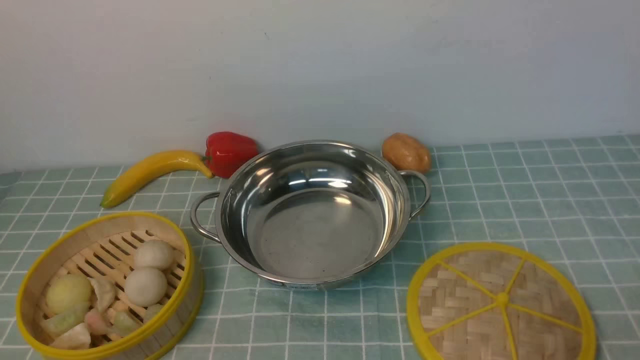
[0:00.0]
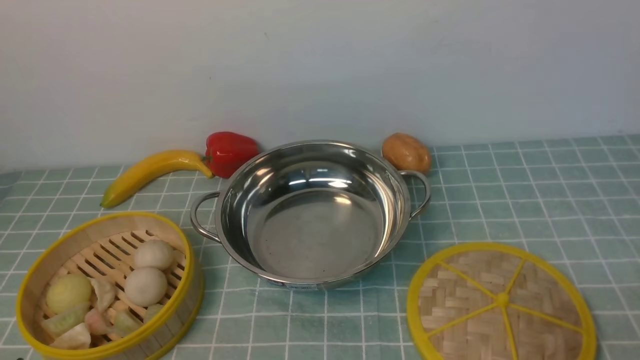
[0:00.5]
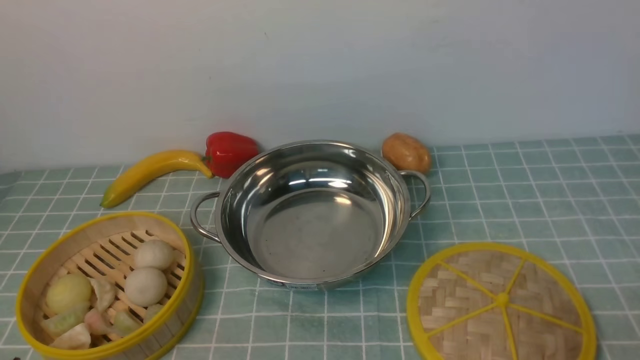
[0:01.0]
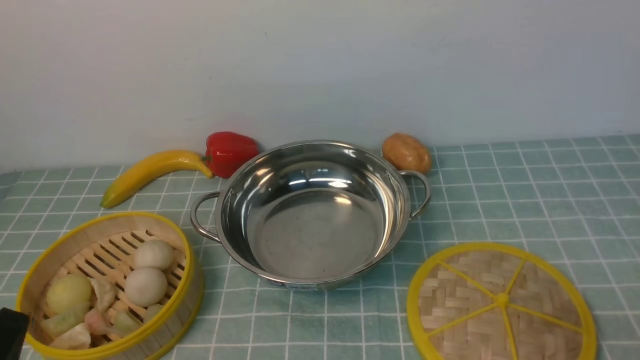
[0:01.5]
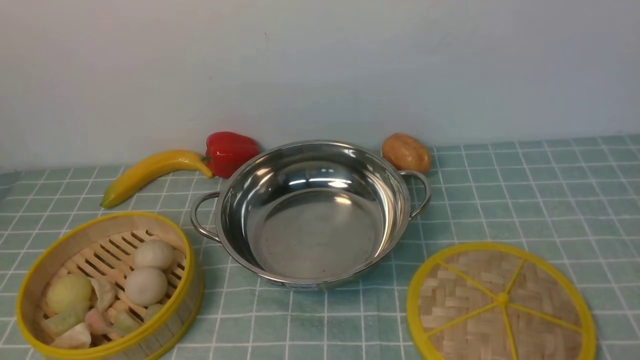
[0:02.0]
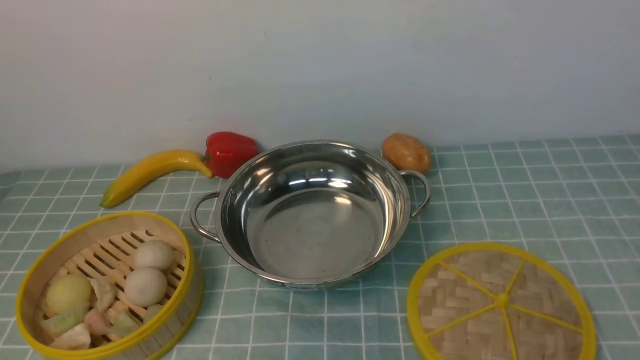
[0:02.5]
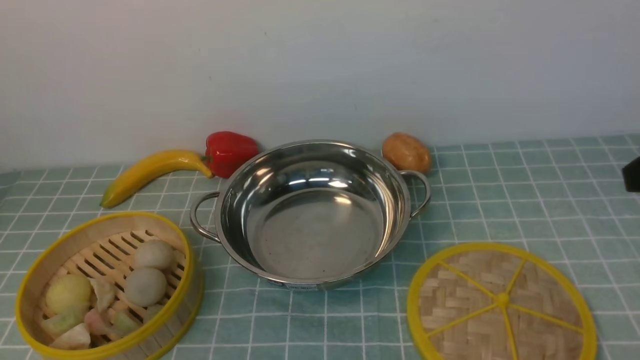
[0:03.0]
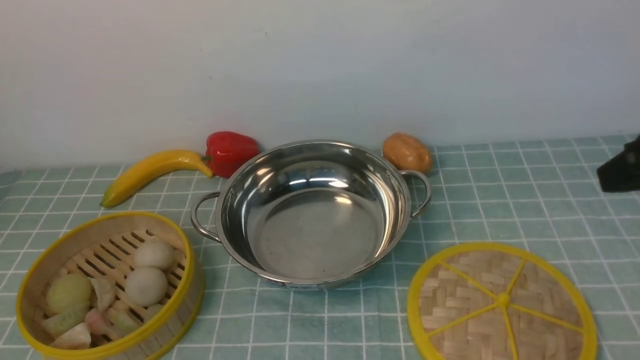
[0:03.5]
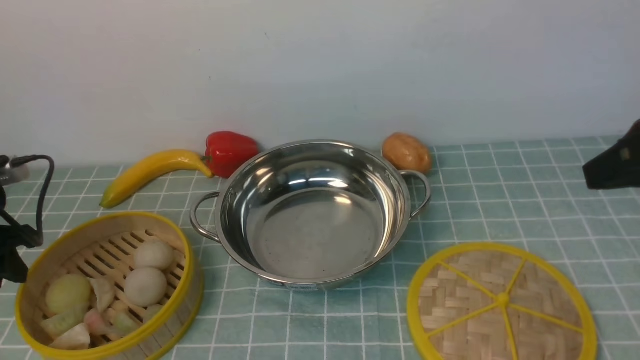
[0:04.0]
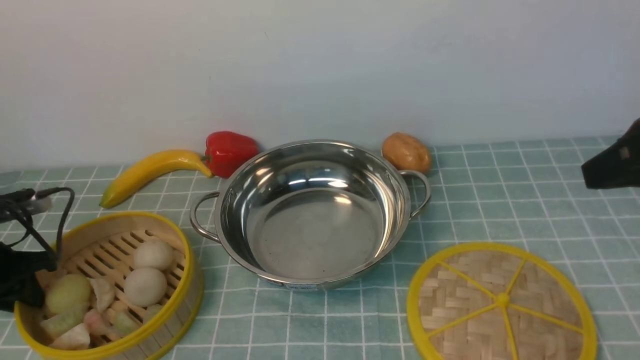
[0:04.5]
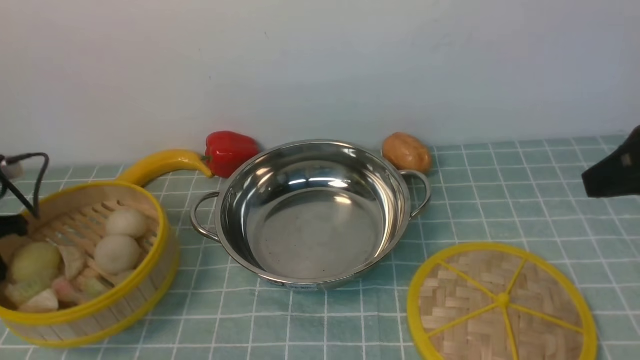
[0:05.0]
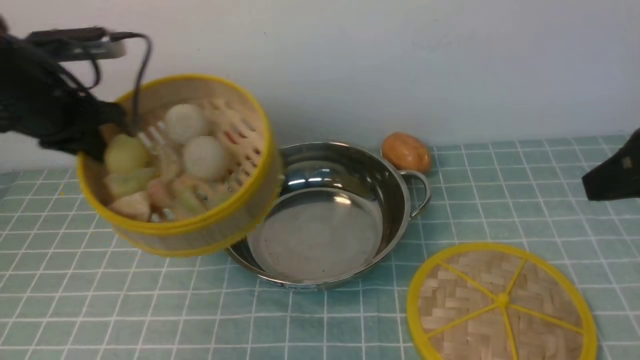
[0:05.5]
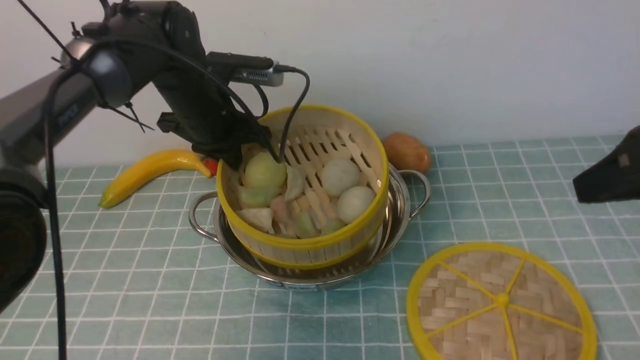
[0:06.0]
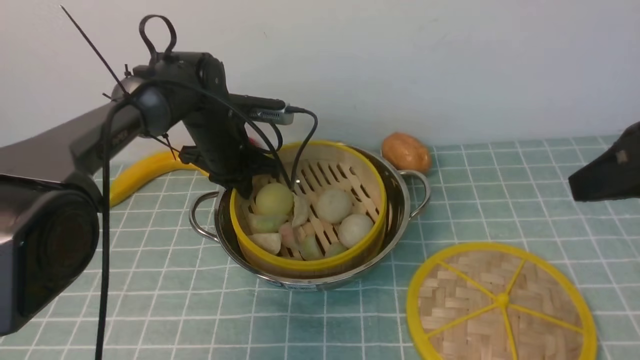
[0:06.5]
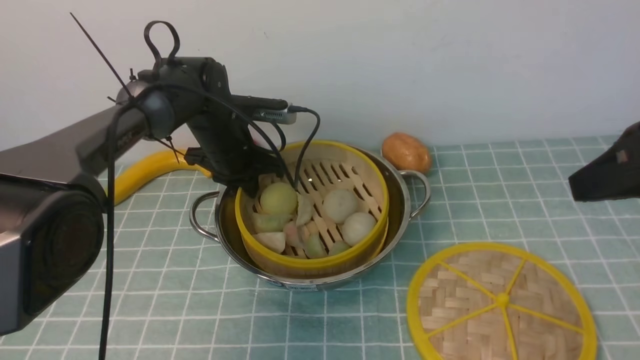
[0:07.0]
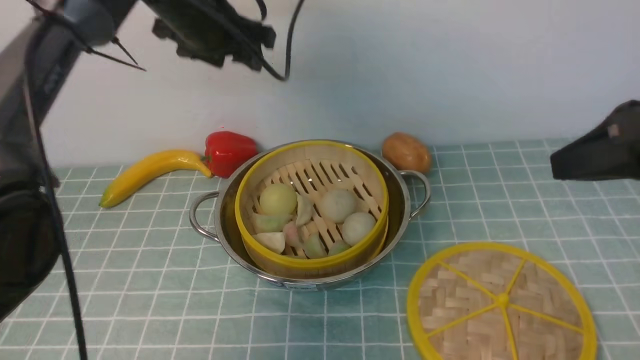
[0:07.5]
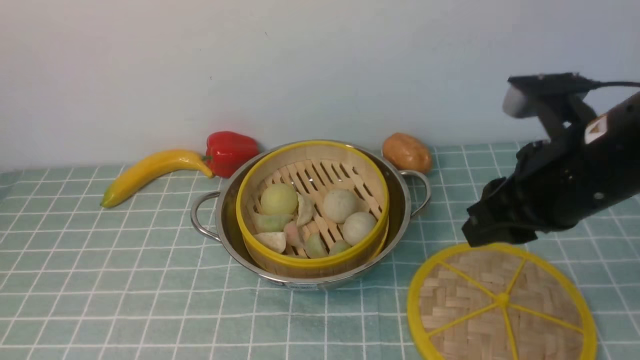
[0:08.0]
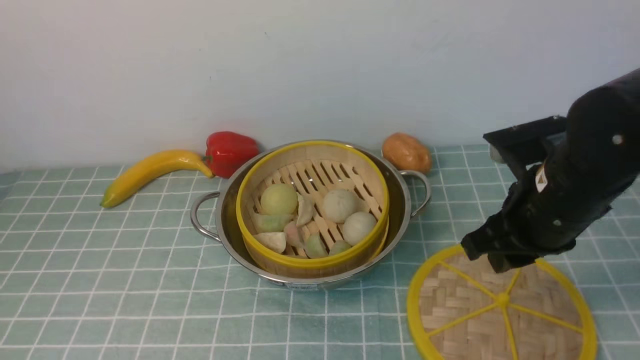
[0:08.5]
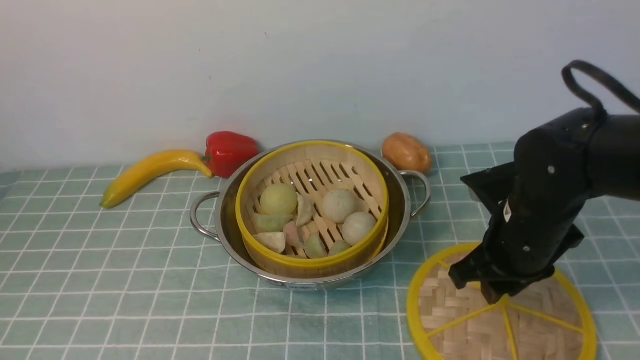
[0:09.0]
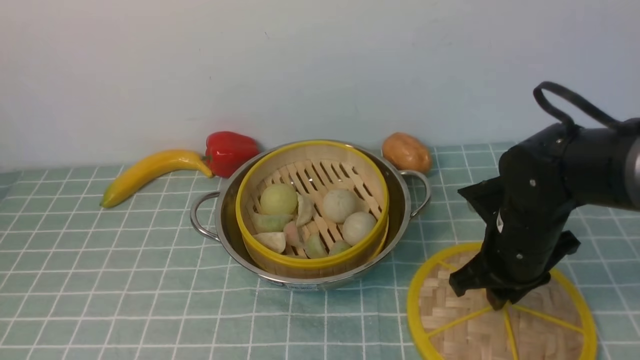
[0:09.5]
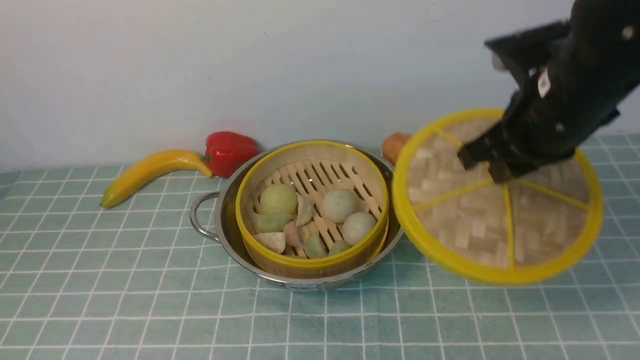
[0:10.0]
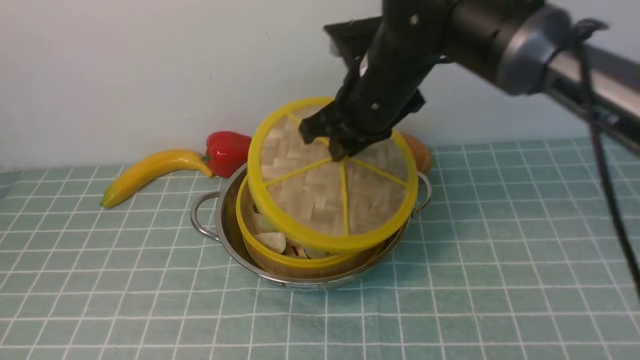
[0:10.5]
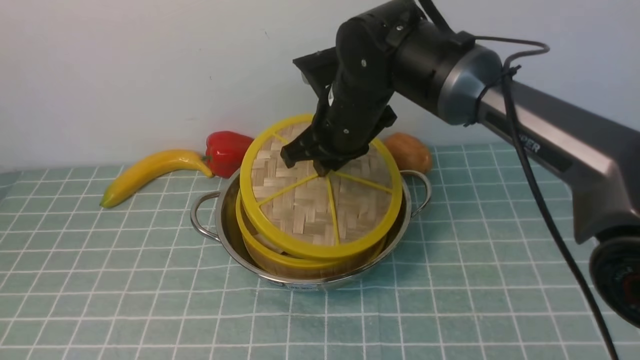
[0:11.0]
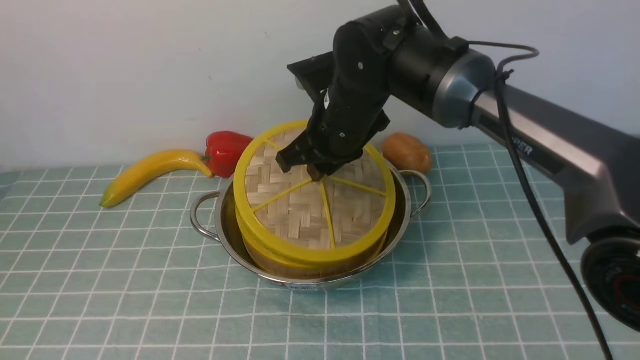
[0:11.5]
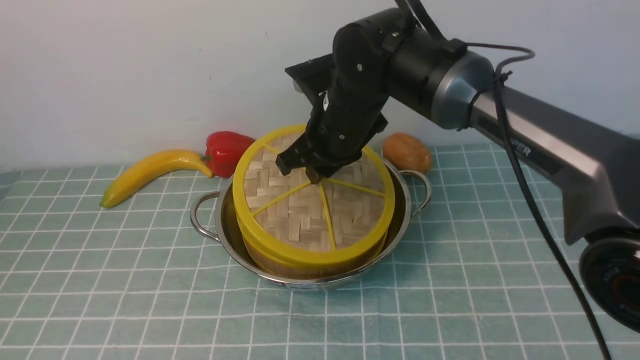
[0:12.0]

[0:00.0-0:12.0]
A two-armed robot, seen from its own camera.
Task of the whole recording: place the steamer in the pot on the blue tablecloth, and put the lid on the steamer.
Step, 0:00.0 to 0:05.0: use the left arm to lift the steamer closest to it.
Step, 0:05.5 to 0:07.5: use the left arm to put the steamer into the iron steamer pot in the middle.
Step, 0:08.0 to 0:09.5: use the right arm to lift the lid of the steamer.
0:02.0 to 0:04.0: The left gripper shifts approximately 30 cm forward and to the left, while the right gripper shifts about 20 cm forward.
0:04.0 to 0:06.0: The left gripper heads to the right and forward, covering some 30 cm, and closes.
0:06.0 to 0:08.0: The right gripper goes approximately 5 cm to the left. Meanwhile the left gripper shifts roughly 35 cm upward and backward, and opens.
0:08.0 to 0:10.0: The right gripper is displaced forward by about 5 cm, and goes downward and returns, about 15 cm each way. The left gripper shifts some 30 cm backward and downward, and closes up.
0:10.0 to 0:12.0: The right gripper is displaced to the left and forward by approximately 20 cm.

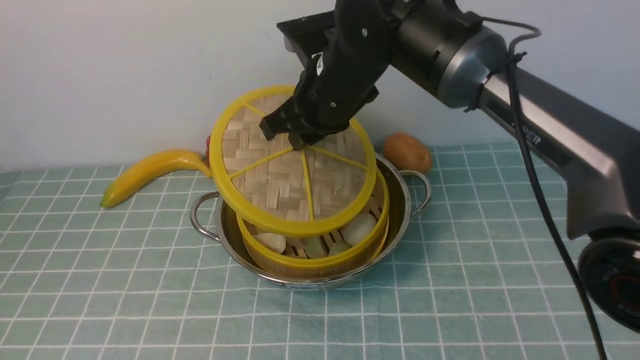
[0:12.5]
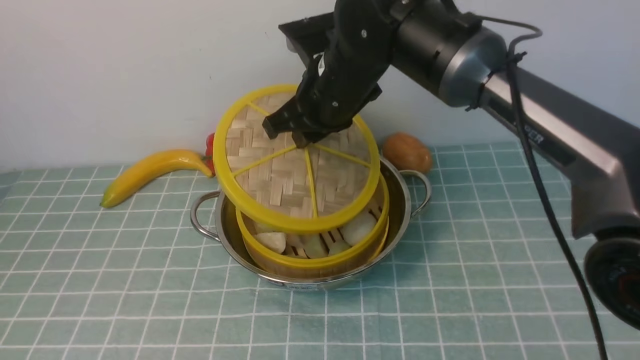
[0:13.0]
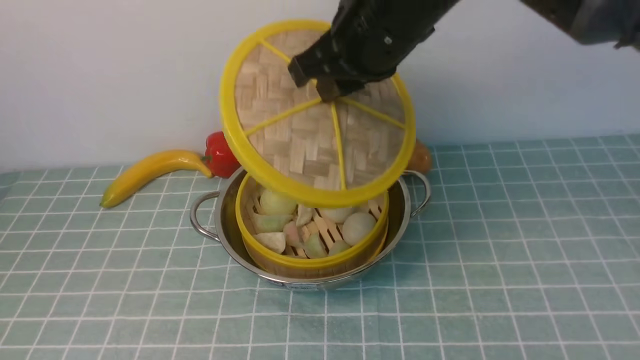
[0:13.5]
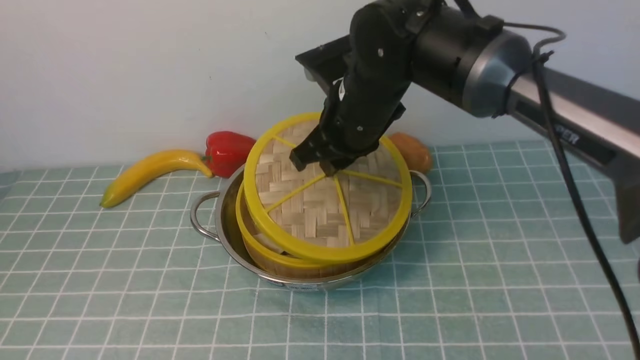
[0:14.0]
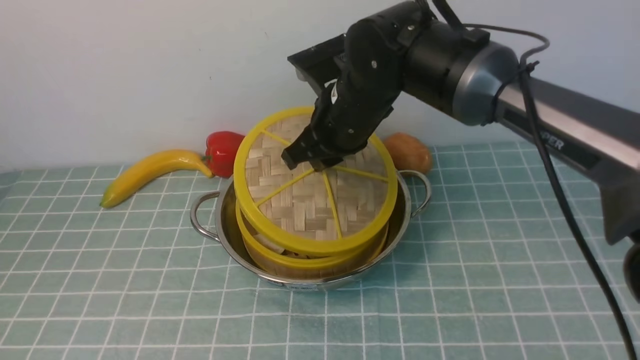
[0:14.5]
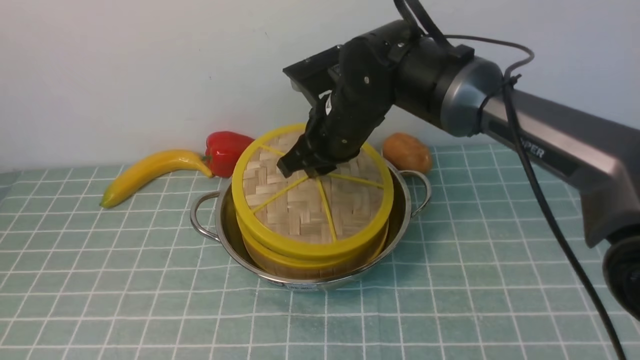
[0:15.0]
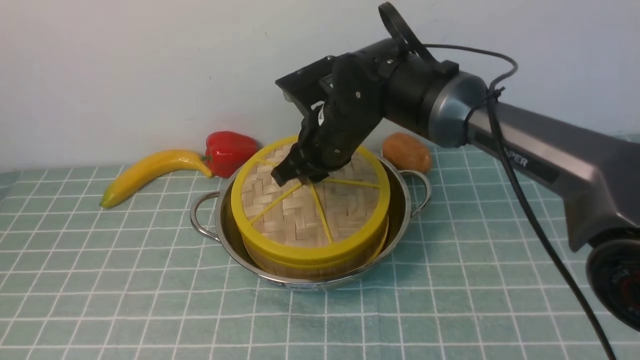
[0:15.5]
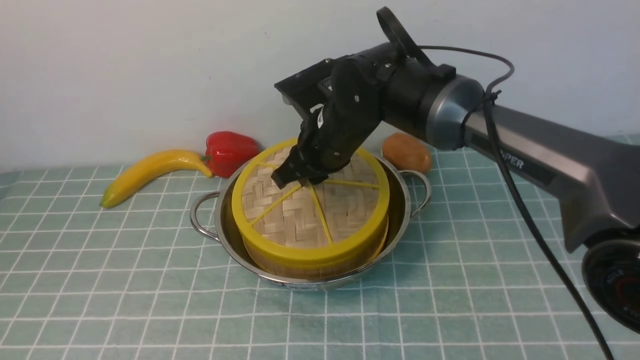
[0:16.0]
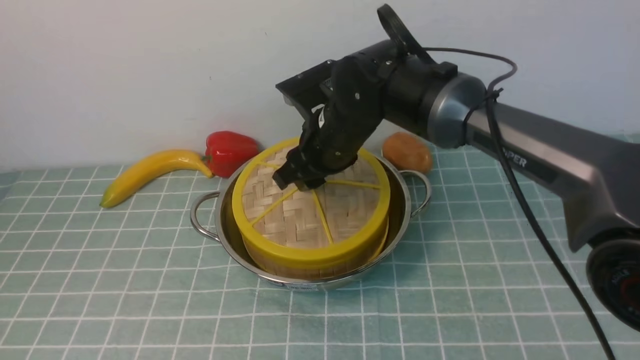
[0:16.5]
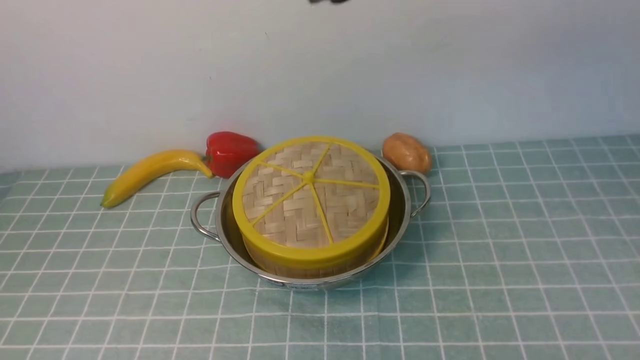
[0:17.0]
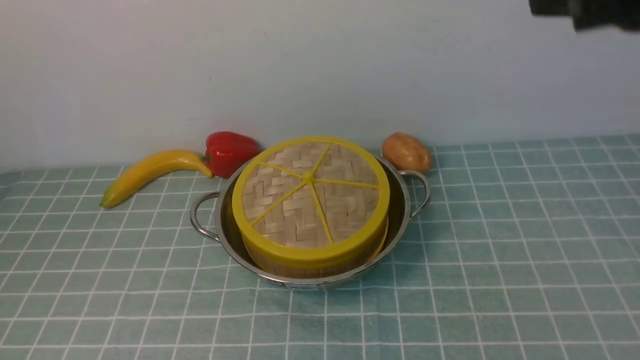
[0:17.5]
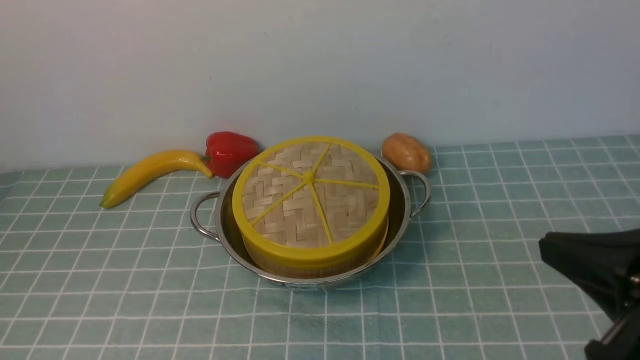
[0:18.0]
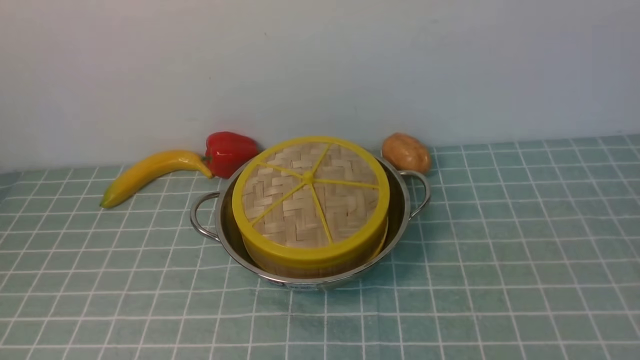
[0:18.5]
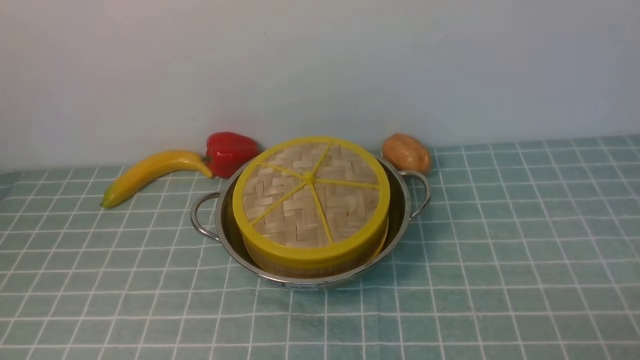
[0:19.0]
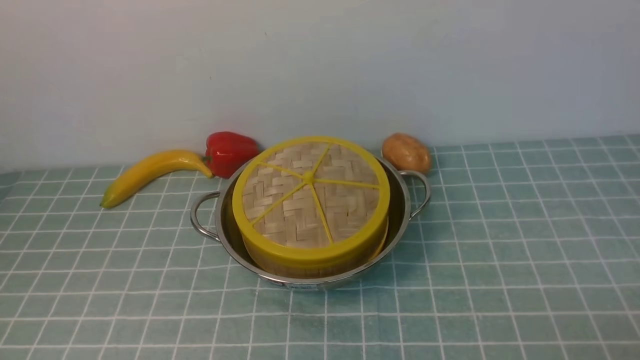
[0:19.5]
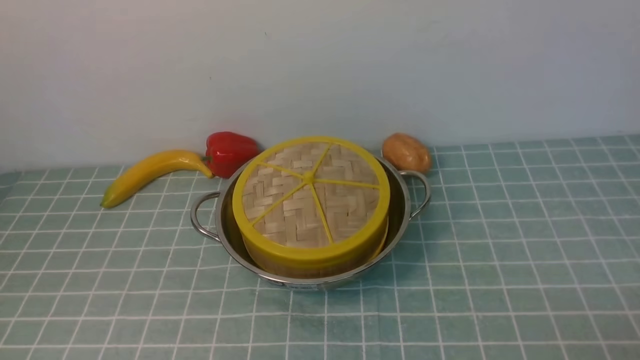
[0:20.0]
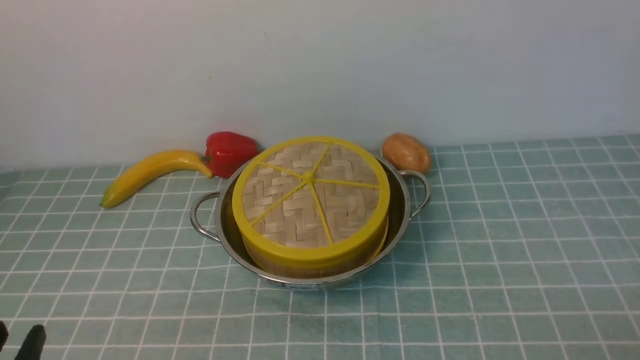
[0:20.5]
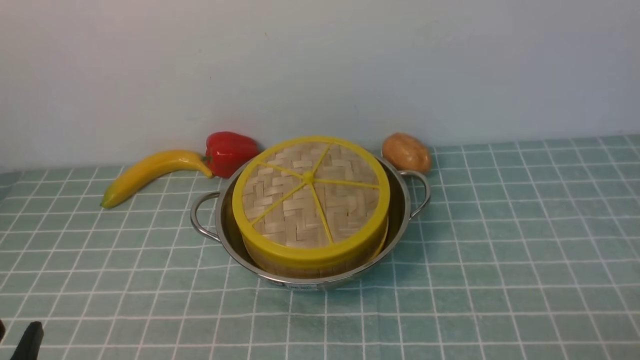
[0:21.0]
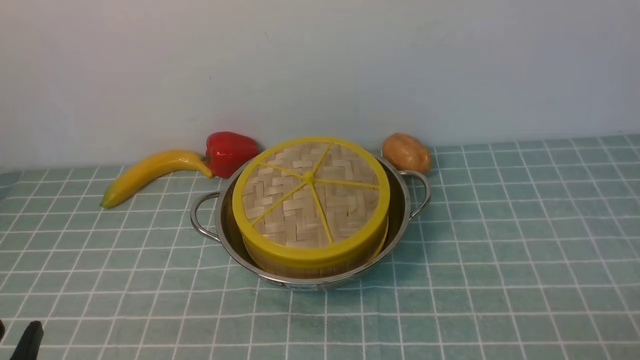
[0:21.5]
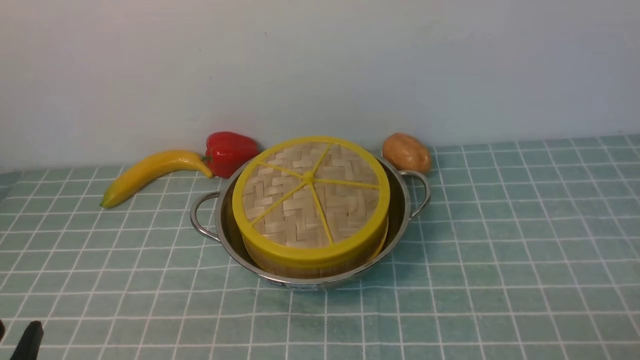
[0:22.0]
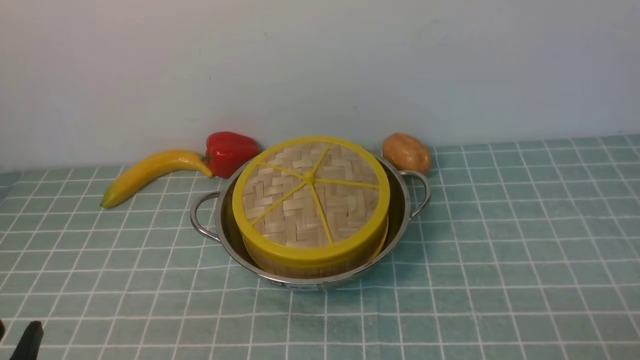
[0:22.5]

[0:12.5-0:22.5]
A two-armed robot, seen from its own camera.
Task of the whole recording: place the steamer in the pot on the blue tablecloth, and put the lid on the steamer.
Step, 0:12.5 to 0:17.0: use the right arm to place the steamer lid on the steamer.
0:12.5 to 0:14.5: The right gripper travels upward and back again, roughly 10 cm each way.
0:14.5 to 0:16.5: The grippers move only a little.
0:16.5 to 0:18.5: The right gripper moves backward and to the right, some 40 cm, and closes its fingers. Meanwhile the left gripper opens up.
